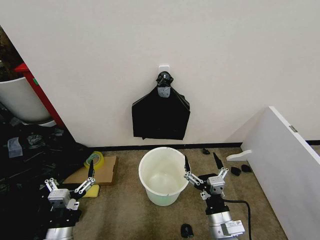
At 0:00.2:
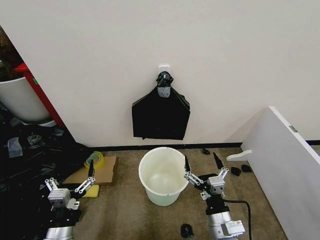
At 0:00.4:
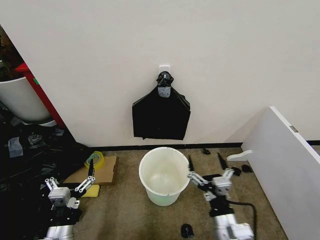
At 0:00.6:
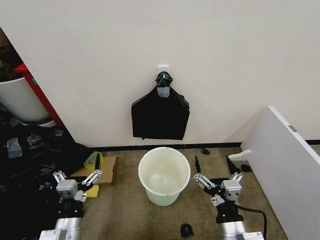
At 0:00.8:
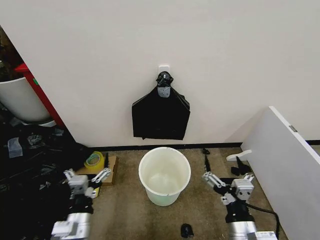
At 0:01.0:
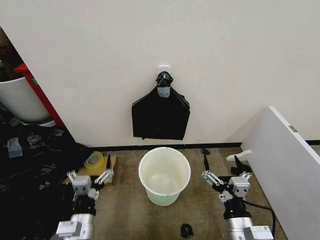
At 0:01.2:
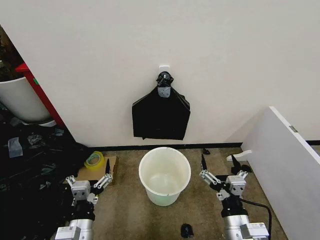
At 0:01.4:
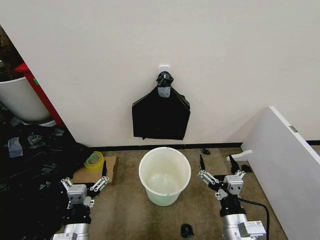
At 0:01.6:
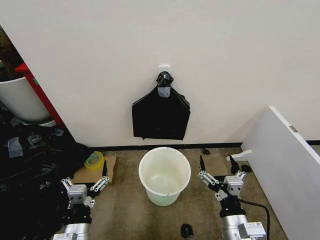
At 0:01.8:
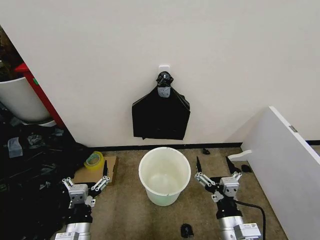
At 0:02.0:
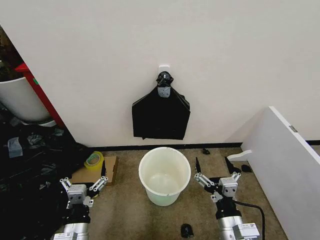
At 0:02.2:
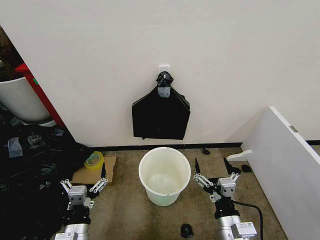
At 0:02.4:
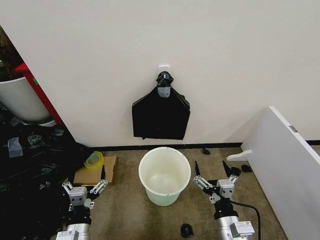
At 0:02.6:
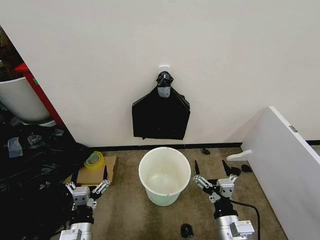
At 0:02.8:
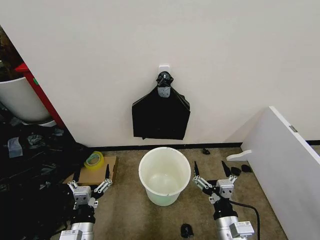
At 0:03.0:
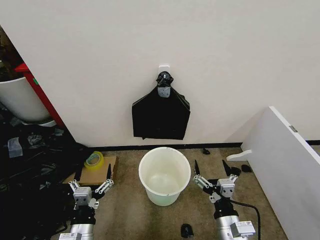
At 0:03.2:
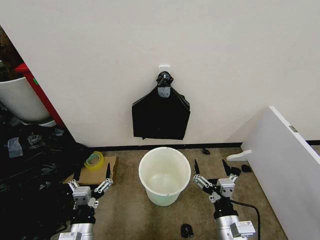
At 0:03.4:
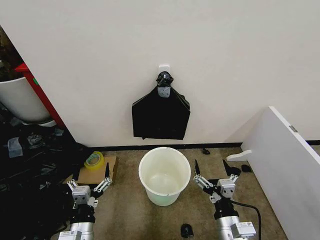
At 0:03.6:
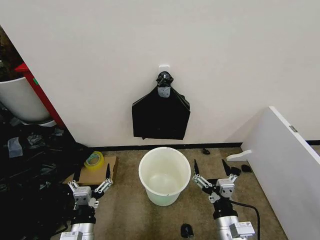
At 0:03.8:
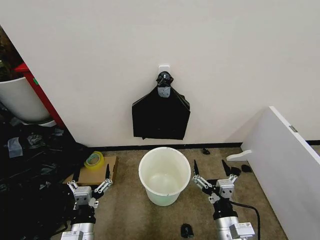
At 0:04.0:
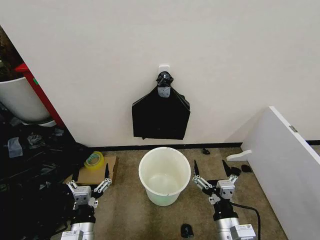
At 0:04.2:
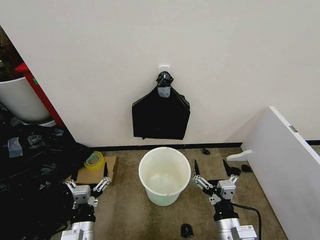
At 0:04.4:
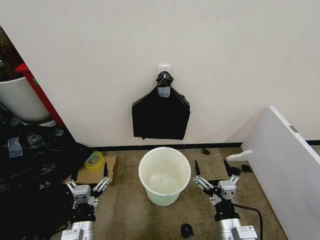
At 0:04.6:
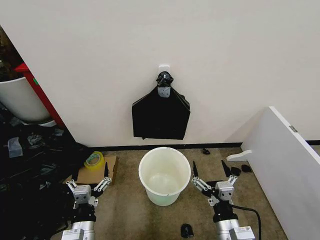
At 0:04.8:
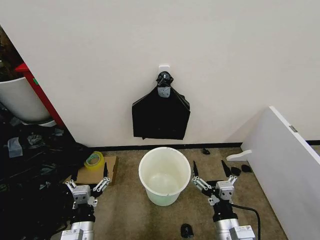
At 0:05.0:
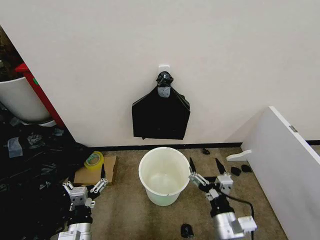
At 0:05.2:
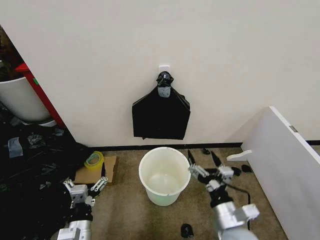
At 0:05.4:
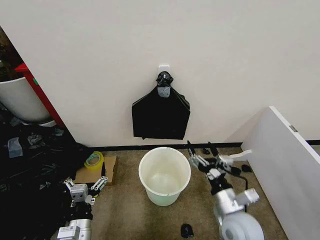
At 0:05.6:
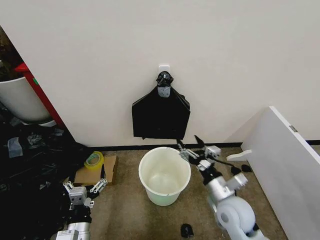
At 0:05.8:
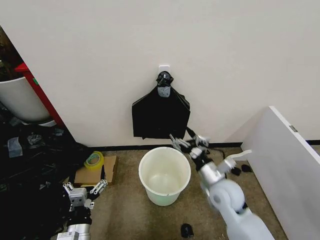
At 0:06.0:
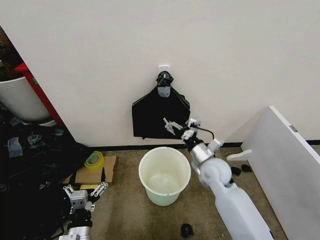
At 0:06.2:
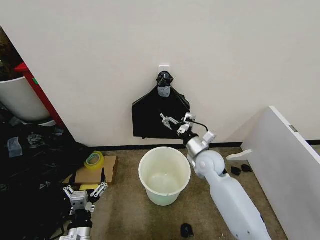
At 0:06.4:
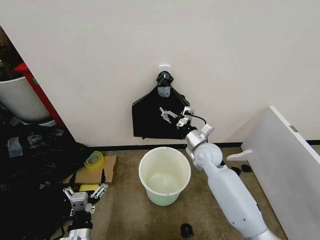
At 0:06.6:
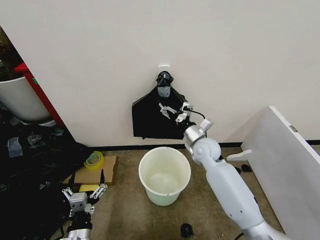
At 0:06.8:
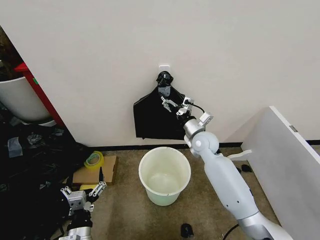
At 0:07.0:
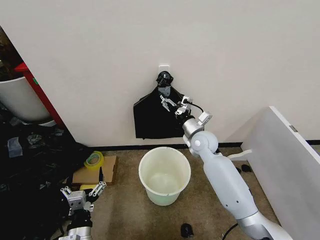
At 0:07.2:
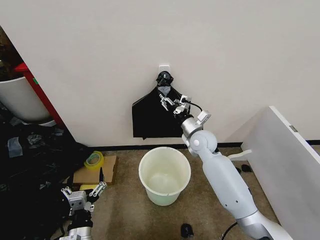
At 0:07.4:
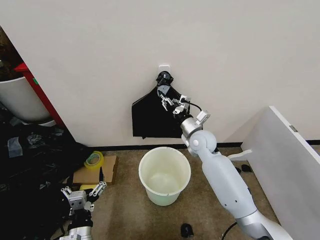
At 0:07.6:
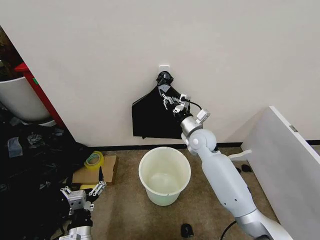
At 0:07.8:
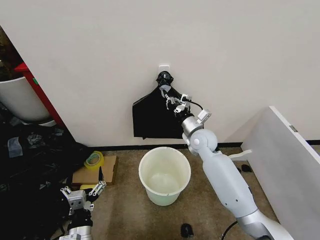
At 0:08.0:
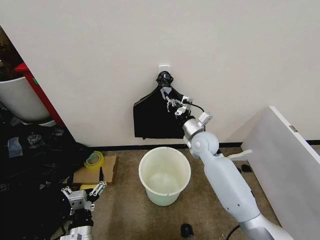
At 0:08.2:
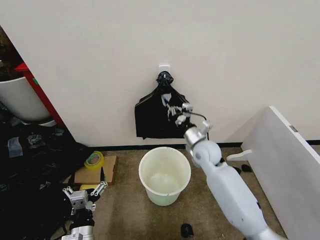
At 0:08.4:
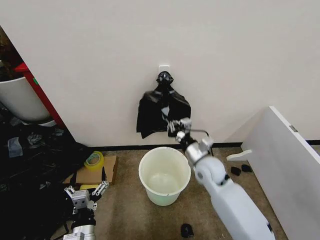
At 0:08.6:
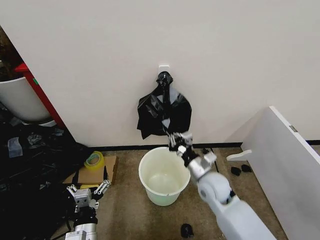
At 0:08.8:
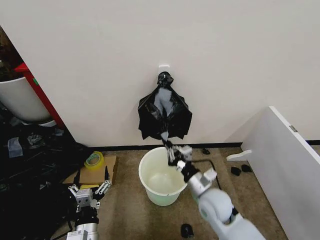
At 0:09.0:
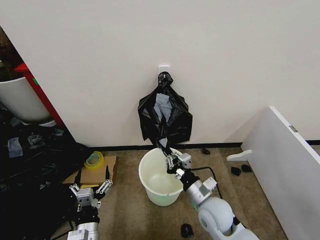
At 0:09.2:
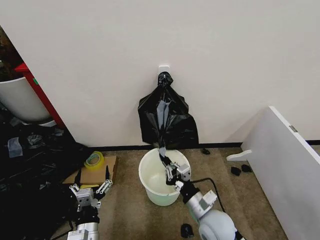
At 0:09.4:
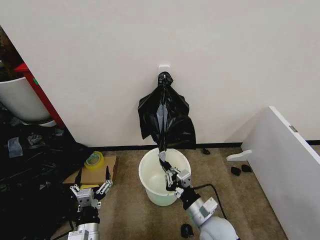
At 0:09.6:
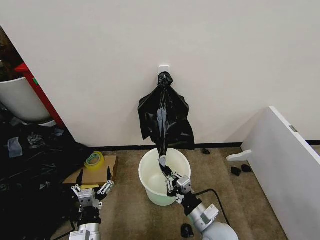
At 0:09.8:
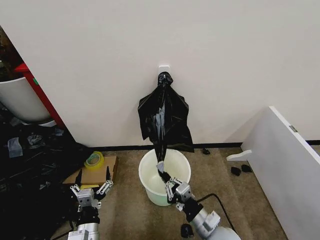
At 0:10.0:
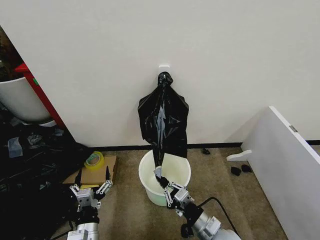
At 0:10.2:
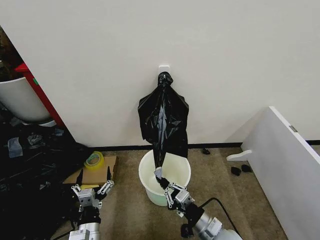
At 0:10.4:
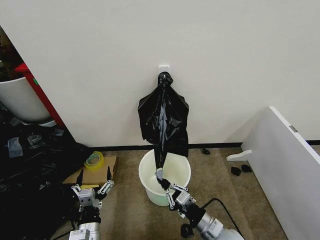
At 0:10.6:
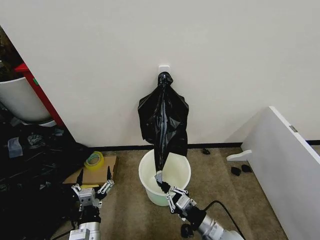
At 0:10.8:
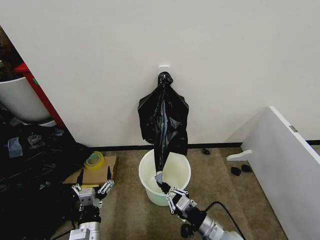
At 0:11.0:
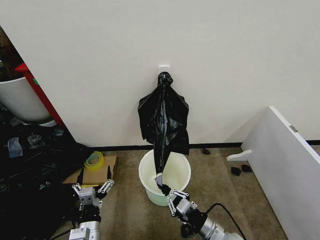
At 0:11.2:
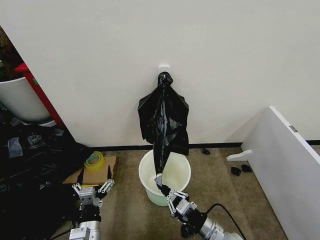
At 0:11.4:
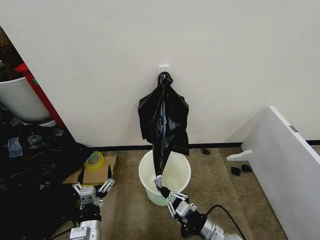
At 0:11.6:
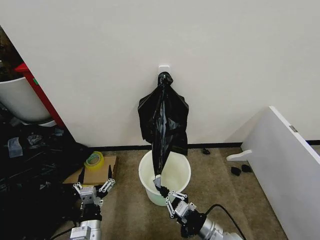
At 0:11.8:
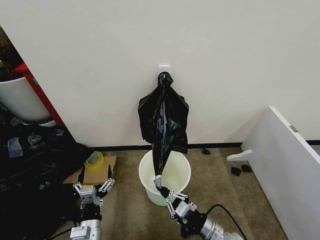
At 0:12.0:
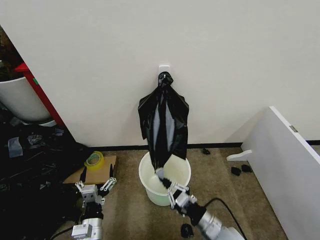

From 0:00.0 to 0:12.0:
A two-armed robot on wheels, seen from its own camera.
Task of the whole recording: Place the garbage bag over the trash bin.
From 0:01.6 to 0:03.0: The grippers move only a little.
From 0:03.0 to 0:04.4: Both grippers stay about where they are.
From 0:04.4 to 0:06.0: The right gripper shifts about 25 cm forward.
From 0:06.0 to 0:07.6: The right gripper shifts about 10 cm forward, and closes its fingers.
From 0:07.6 to 0:09.0: The right gripper is displaced backward and downward by about 25 cm.
From 0:09.0 to 0:10.4: The right gripper moves backward, approximately 5 cm.
From 0:10.4 to 0:12.0: There are only small adjustments of the grippers.

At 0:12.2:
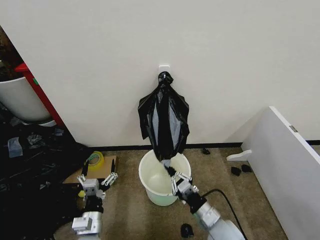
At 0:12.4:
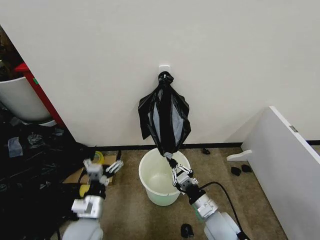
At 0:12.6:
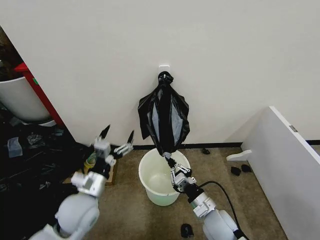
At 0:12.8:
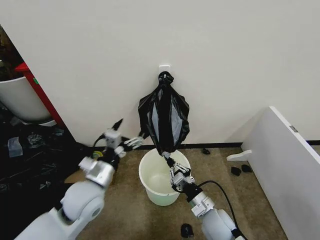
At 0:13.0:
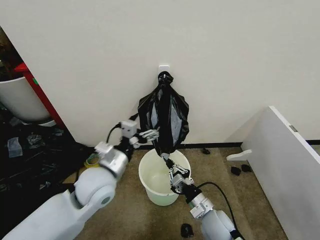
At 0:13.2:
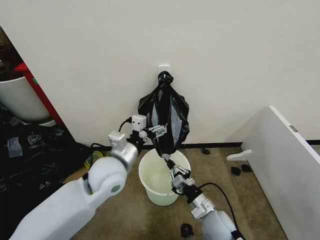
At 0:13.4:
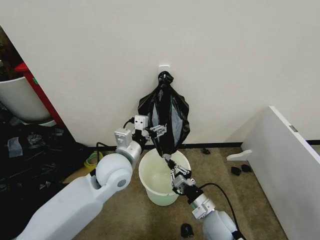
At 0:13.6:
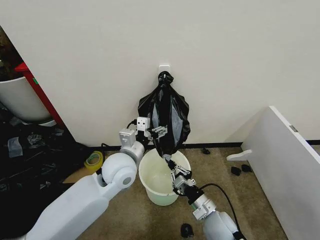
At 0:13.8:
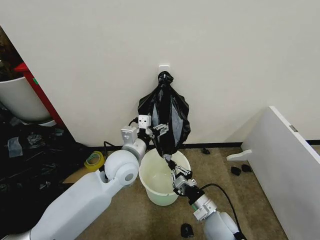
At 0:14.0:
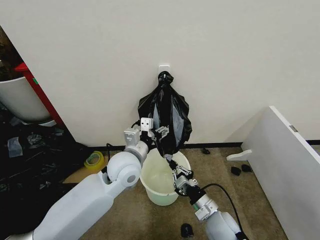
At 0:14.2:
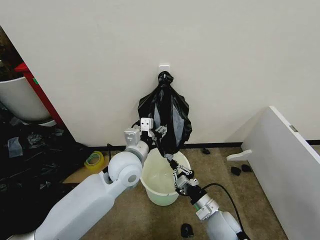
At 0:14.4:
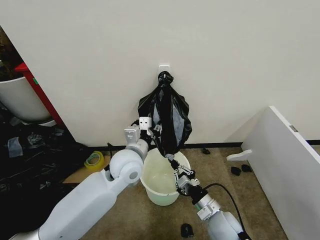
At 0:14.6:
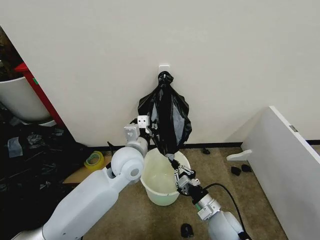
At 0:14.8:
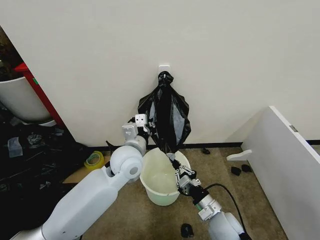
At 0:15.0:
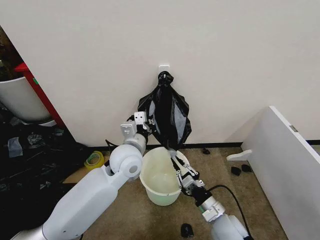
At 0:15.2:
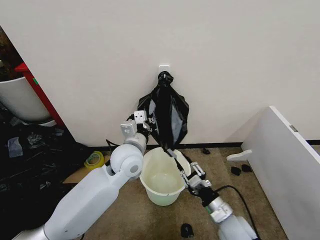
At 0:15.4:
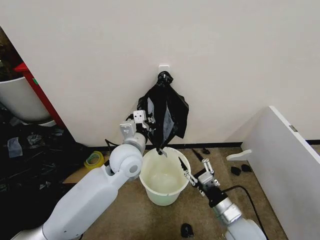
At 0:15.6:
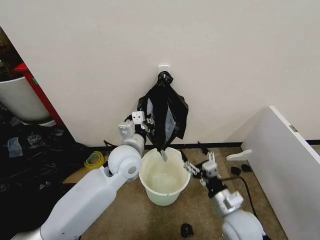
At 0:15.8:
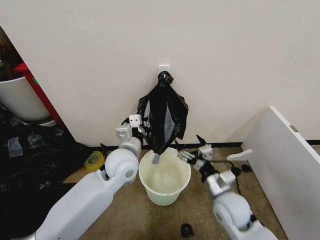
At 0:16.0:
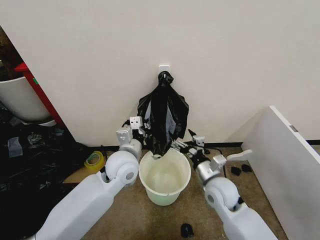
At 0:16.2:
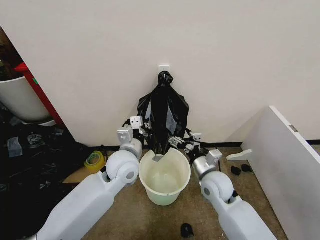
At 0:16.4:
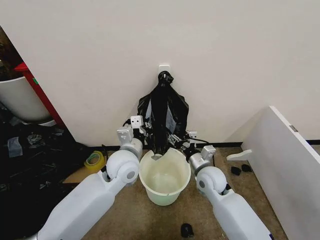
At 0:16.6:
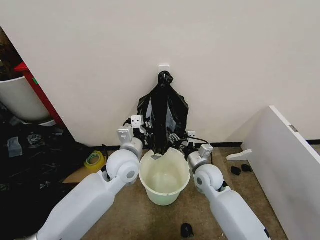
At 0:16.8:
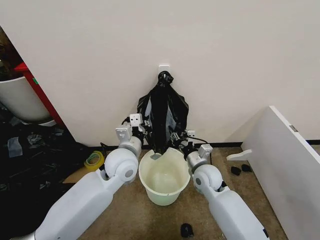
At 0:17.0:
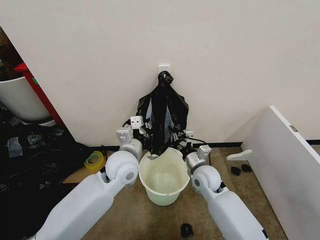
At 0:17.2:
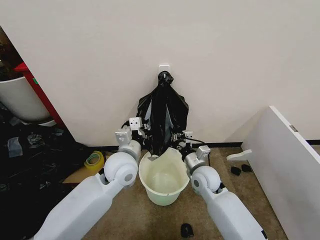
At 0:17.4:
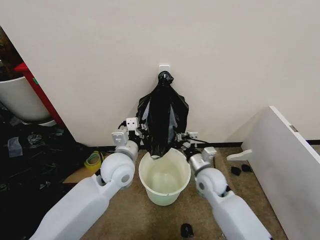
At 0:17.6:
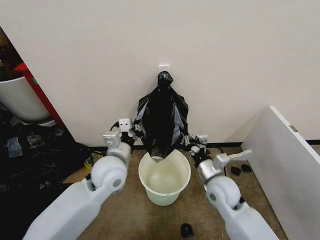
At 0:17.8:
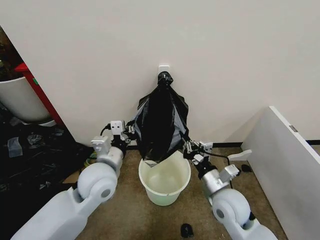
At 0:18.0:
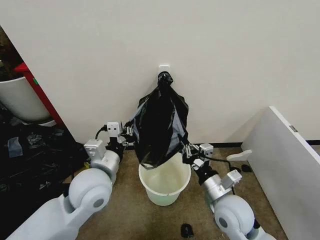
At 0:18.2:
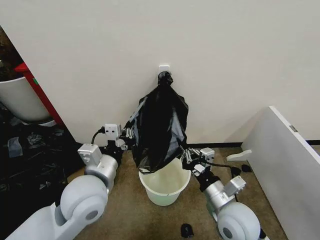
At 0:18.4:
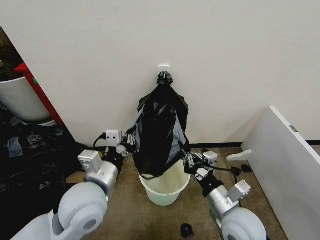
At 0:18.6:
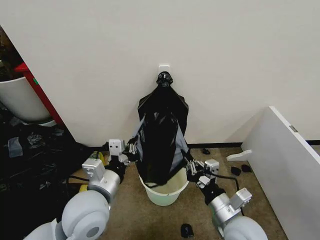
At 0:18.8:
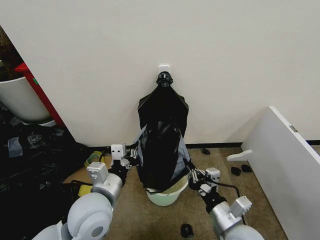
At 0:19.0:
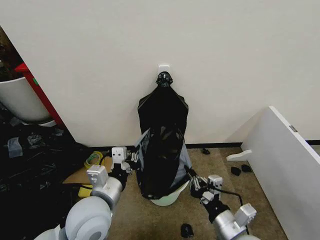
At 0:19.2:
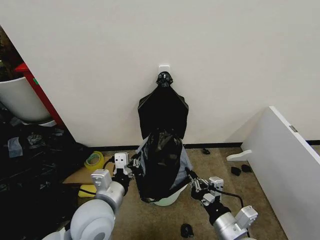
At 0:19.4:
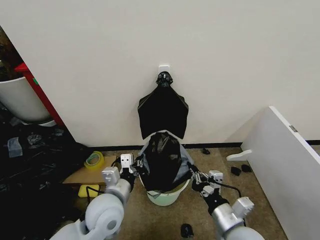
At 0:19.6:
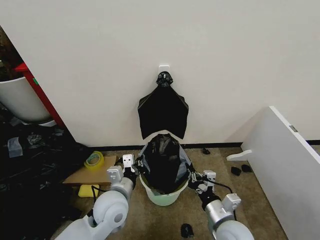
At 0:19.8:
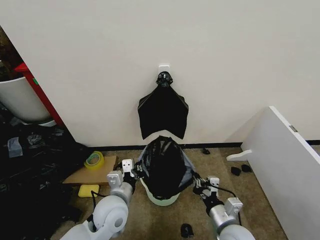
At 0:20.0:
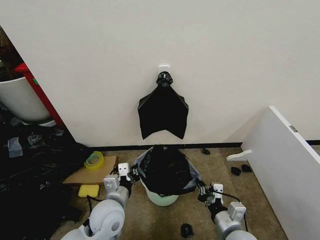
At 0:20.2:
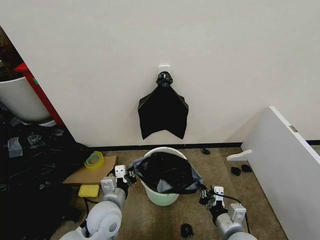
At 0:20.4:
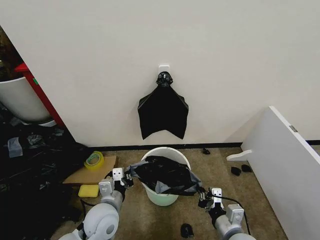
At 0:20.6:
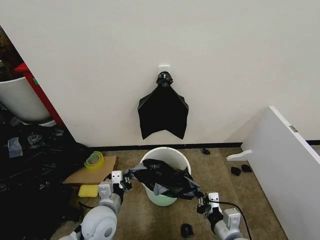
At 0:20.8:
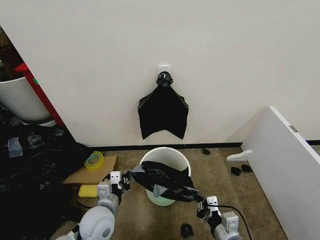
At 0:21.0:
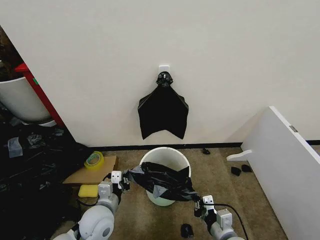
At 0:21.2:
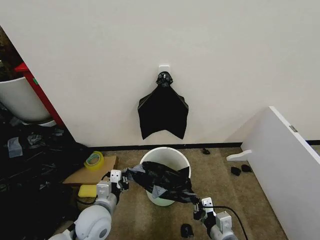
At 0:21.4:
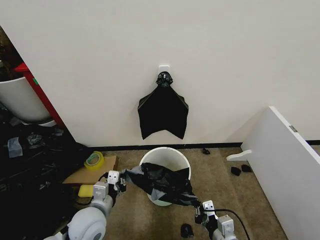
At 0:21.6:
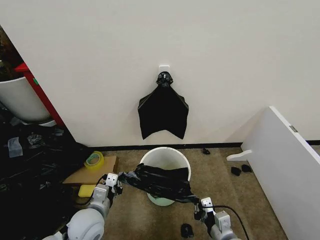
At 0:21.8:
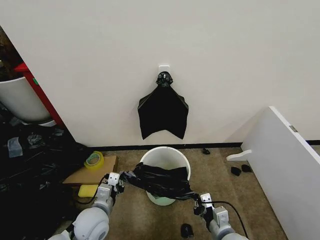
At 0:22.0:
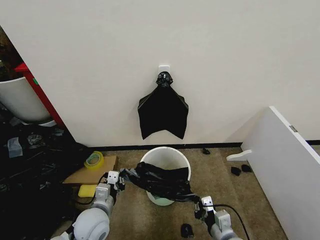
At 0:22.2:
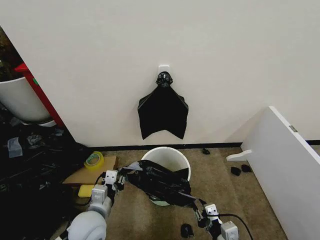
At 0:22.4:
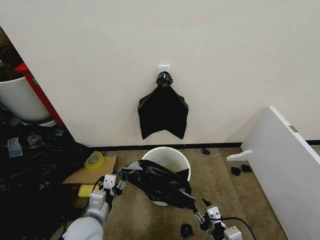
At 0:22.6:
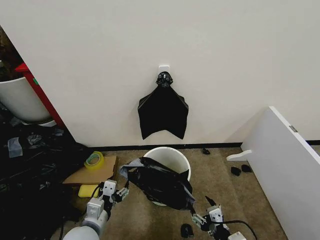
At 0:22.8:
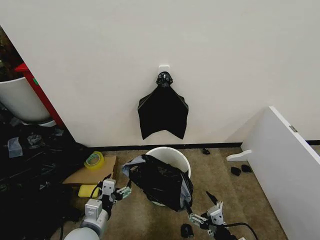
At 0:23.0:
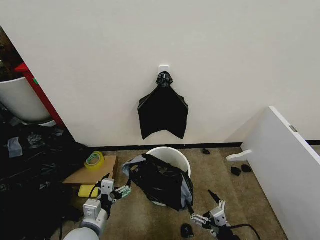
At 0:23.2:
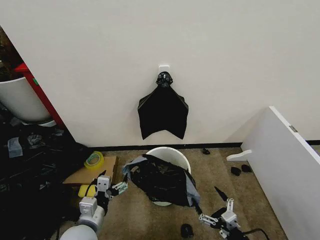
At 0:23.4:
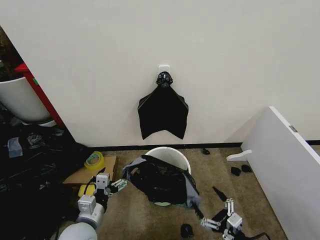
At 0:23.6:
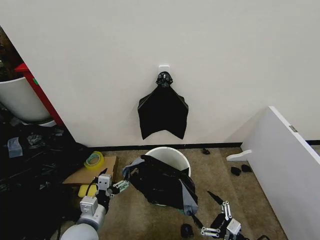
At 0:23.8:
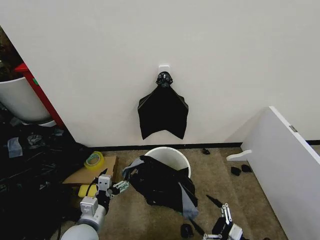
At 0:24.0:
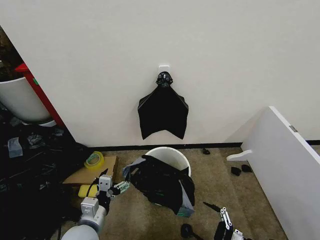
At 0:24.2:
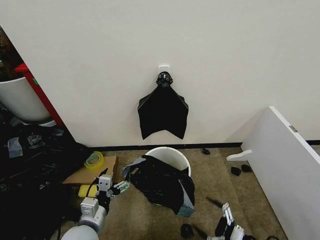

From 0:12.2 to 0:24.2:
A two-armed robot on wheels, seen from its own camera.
Task of the whole recording: Place the garbage bag over the trash bin.
From 0:12.2 to 0:13.8: The left gripper moves forward, upward and to the right, some 25 cm.
From 0:13.8 to 0:15.2: The left gripper closes up.
From 0:15.2 to 0:16.6: The right gripper moves forward, about 15 cm, and opens and closes again.
From 0:16.6 to 0:18.2: The right gripper travels backward by some 15 cm, and closes its fingers. Meanwhile the left gripper is displaced backward and to the left by about 10 cm.
From 0:18.2 to 0:19.8: The right gripper shifts about 10 cm downward, while the left gripper heads downward, covering some 15 cm.
From 0:19.8 to 0:21.2: The left gripper travels to the left by about 5 cm.
From 0:21.2 to 0:22.6: Both grippers travel together backward, approximately 5 cm. The left gripper opens up; the right gripper opens.
From 0:22.6 to 0:24.2: The right gripper goes approximately 15 cm to the right and downward.
